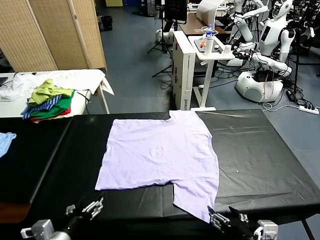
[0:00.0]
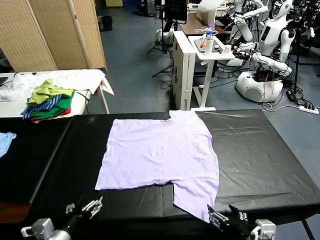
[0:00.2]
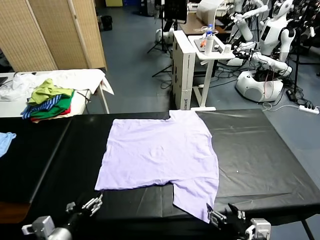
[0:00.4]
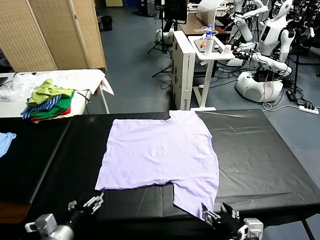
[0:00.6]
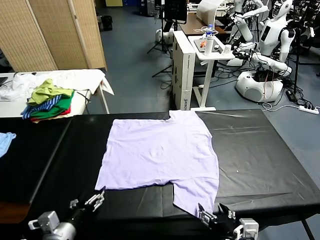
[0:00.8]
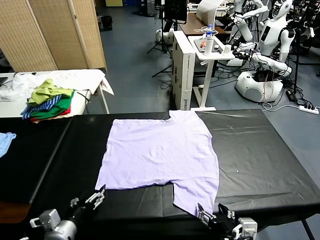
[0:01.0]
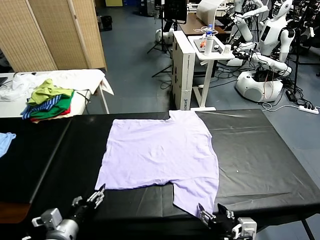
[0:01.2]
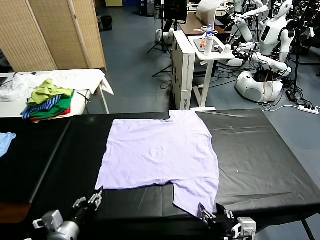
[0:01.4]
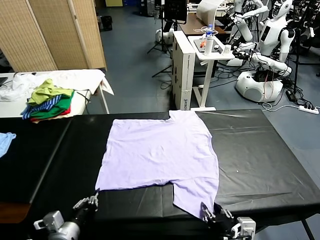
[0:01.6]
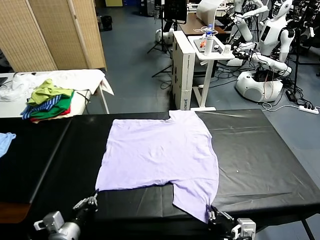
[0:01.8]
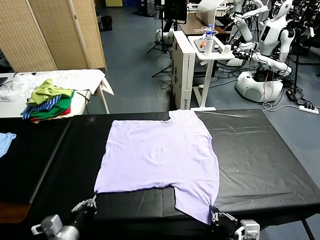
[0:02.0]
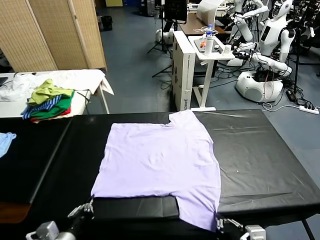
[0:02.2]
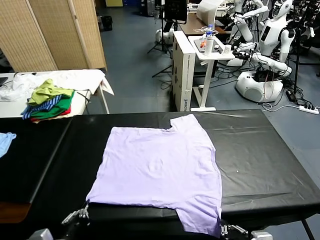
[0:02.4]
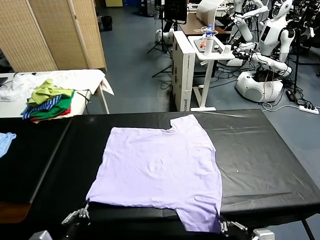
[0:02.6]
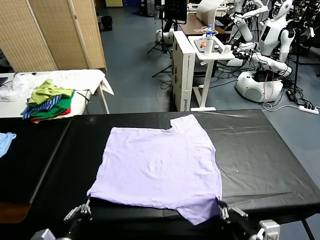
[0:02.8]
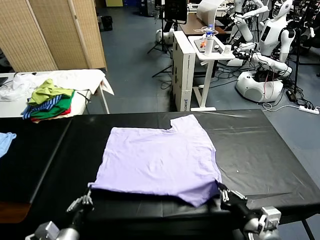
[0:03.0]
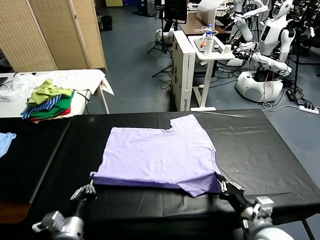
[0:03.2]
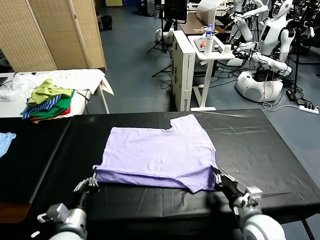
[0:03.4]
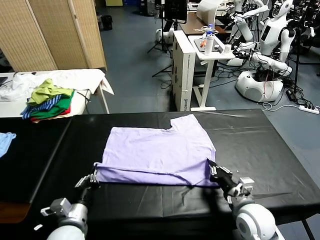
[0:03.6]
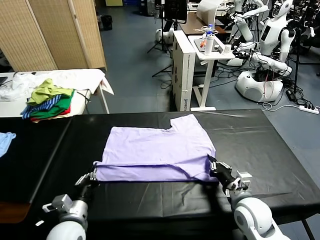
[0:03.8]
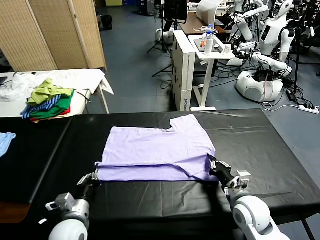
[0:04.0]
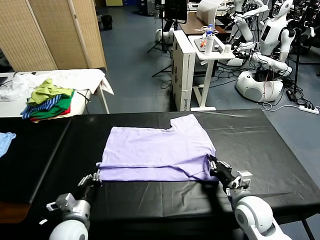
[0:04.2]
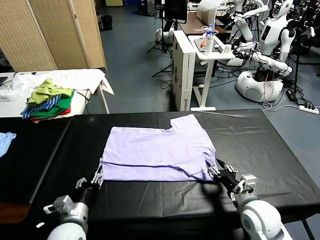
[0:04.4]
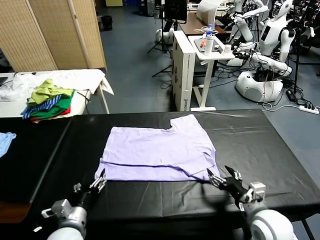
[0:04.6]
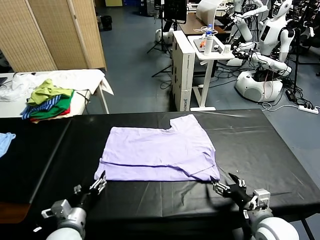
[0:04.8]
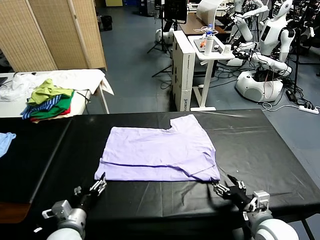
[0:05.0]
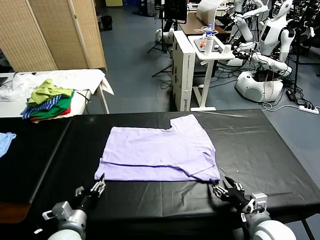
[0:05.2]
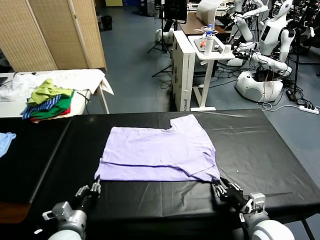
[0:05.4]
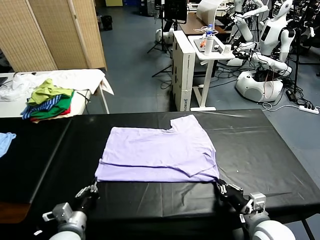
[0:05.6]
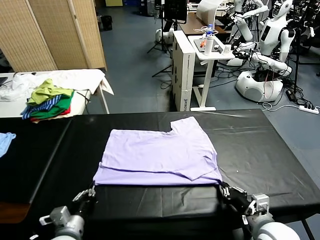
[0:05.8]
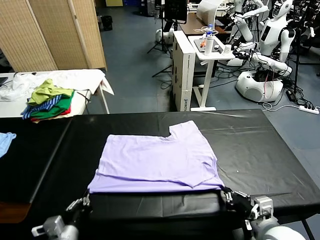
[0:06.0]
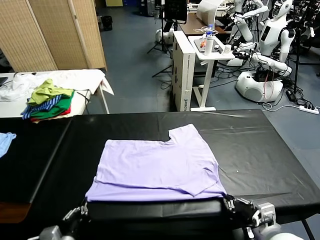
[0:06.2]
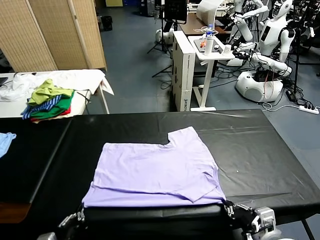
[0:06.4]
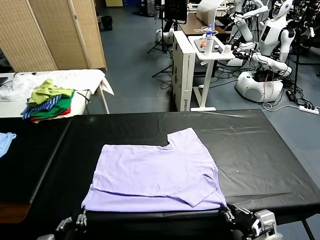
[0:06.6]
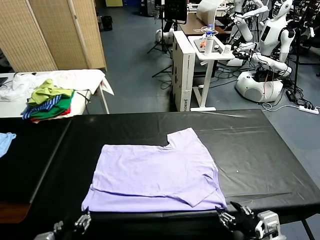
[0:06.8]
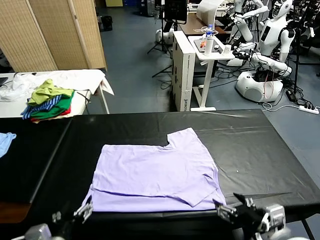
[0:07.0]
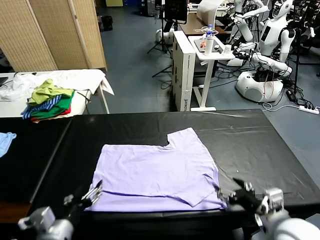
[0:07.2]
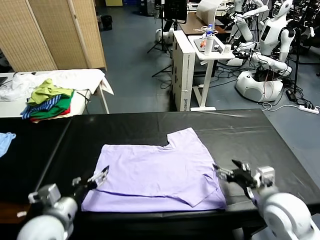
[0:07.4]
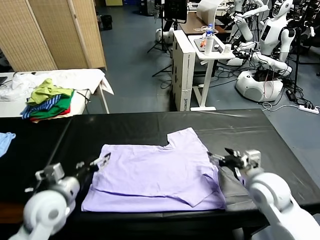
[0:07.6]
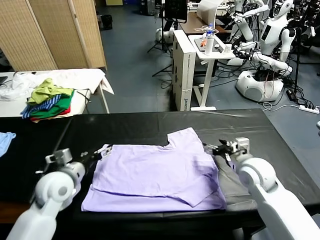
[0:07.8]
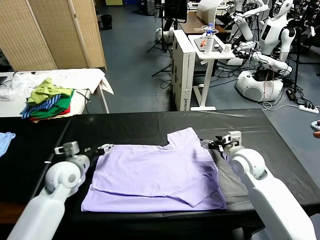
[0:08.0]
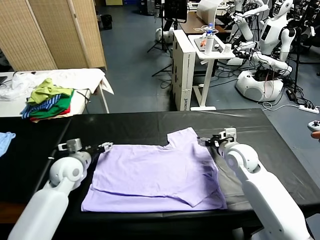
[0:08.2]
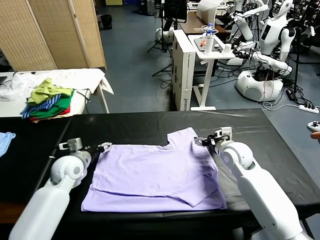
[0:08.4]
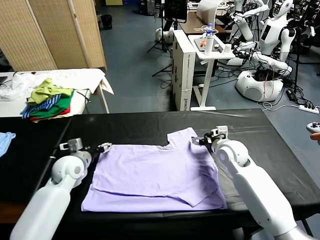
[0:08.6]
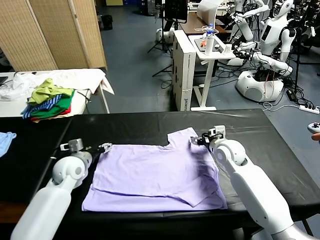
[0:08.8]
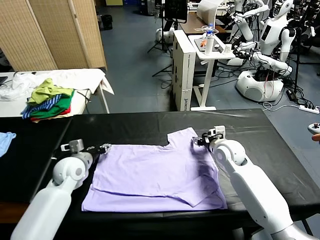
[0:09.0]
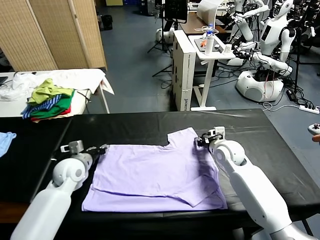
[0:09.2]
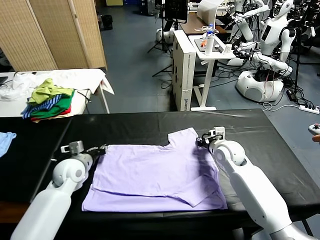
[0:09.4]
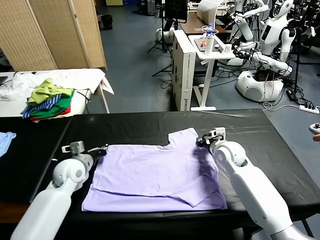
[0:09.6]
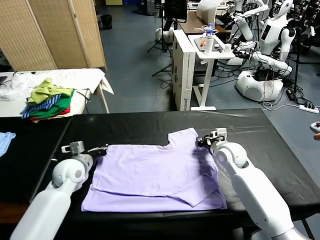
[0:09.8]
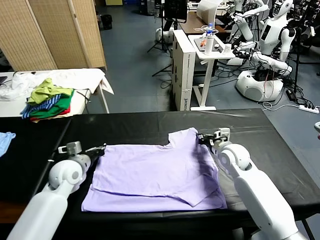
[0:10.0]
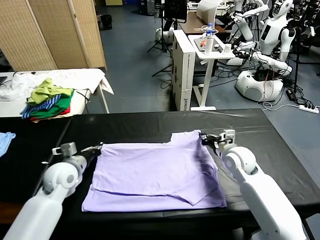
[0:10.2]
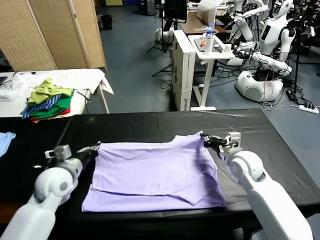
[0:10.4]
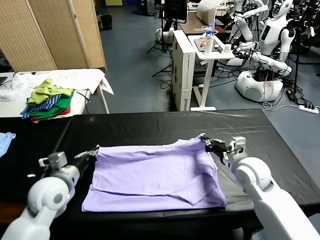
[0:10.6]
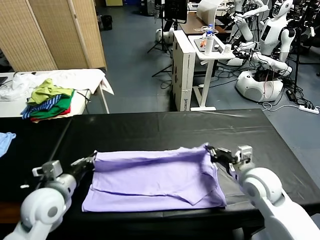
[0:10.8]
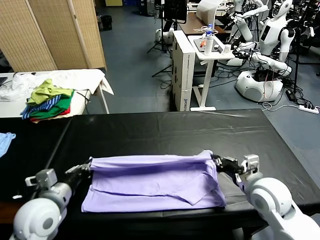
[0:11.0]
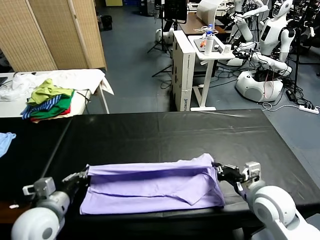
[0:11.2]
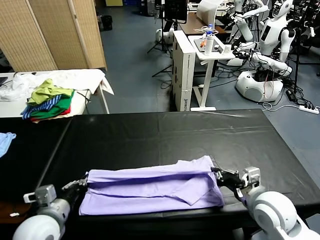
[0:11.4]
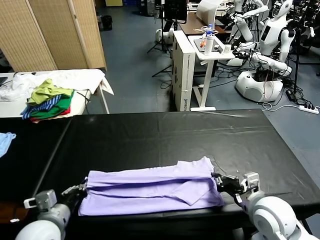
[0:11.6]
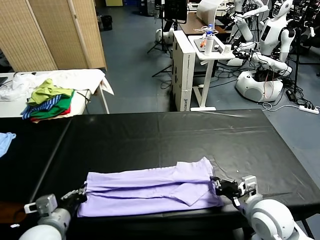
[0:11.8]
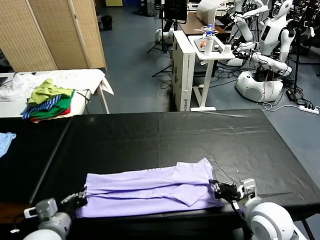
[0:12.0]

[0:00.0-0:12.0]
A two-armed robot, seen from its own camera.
Task of the whole recording: fold and organize the clothes.
Step, 0.0 to 1.8 s: use both grippers simultaneously to clamp the lower edge of the clothing fabric.
Step, 2.0 to 4.2 s: use both grippers to drag the lower edge of the fabric forward and fold it over the upper edge.
Step, 4.6 to 6.6 s: Drag the clothes downward with both gripper.
Step, 6.8 to 9.8 s: use both grippers simultaneously to clamp the upper edge of the clothing fabric.
1.6 to 3.0 s: The right gripper shifts some 10 cm forward.
3.0 to 4.4 s: The left gripper opens. Meanwhile the right gripper opens its fingers.
4.4 to 6.0 s: Both grippers move backward, approximately 5 cm. The left gripper closes up. The right gripper closes its fingers.
6.0 to 7.6 s: The two grippers go roughly 20 cm forward. The left gripper opens its fingers. The right gripper opens up.
7.6 to 9.0 s: The right gripper goes approximately 10 cm forward, and closes; the left gripper heads forward and downward, covering some 10 cm, and closes its fingers.
9.0 to 10.4 s: The right gripper goes about 10 cm backward; the left gripper travels backward and upward by approximately 10 cm, and closes up.
10.4 to 12.0 s: The two grippers go about 15 cm backward.

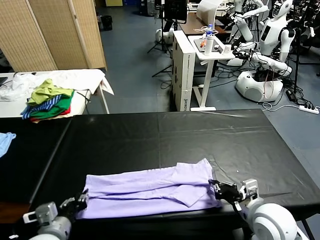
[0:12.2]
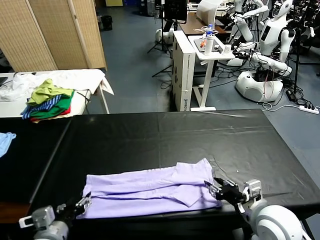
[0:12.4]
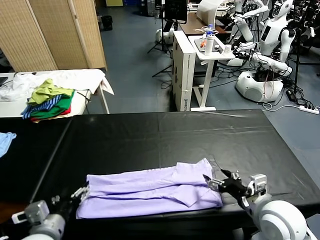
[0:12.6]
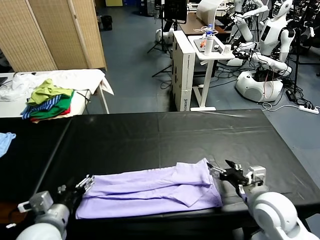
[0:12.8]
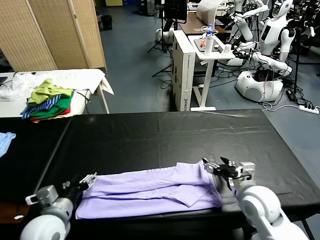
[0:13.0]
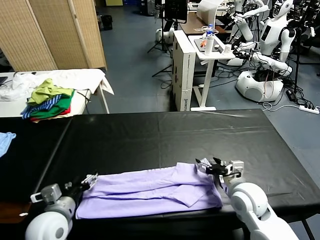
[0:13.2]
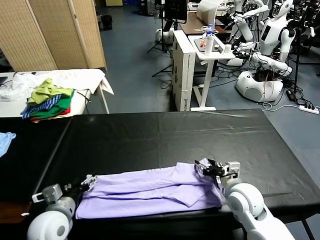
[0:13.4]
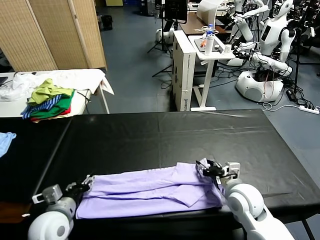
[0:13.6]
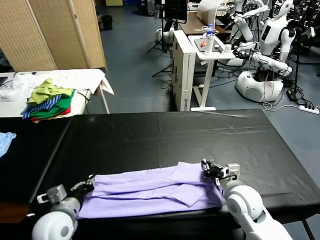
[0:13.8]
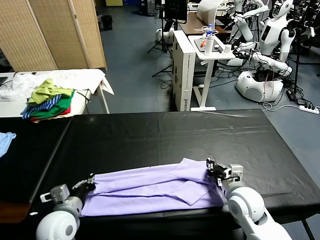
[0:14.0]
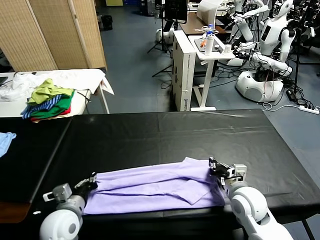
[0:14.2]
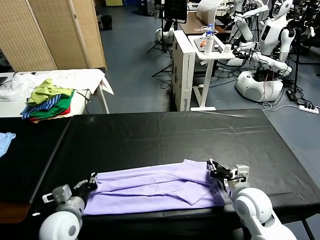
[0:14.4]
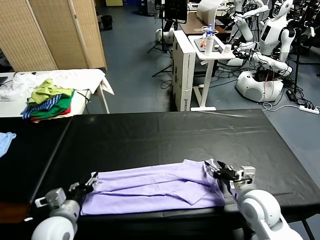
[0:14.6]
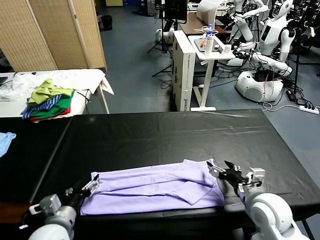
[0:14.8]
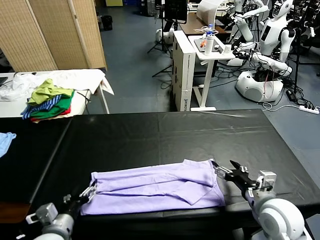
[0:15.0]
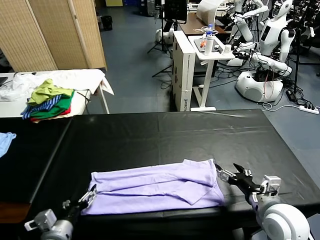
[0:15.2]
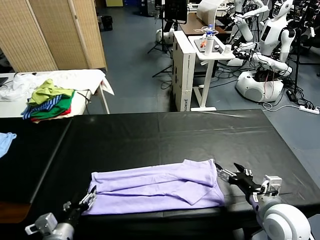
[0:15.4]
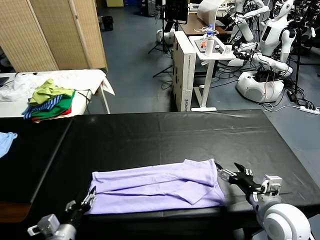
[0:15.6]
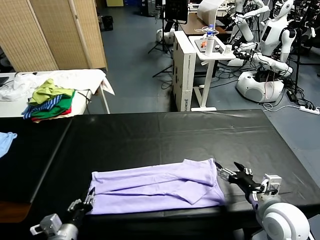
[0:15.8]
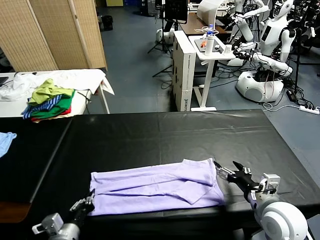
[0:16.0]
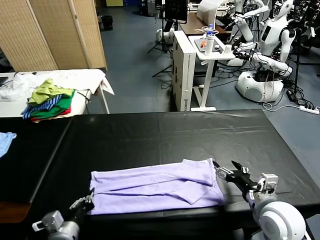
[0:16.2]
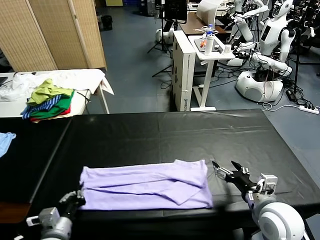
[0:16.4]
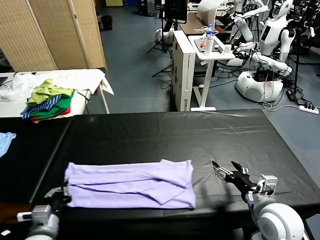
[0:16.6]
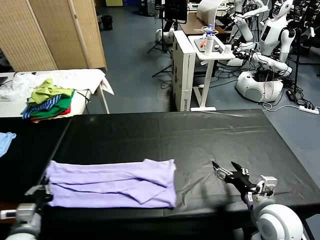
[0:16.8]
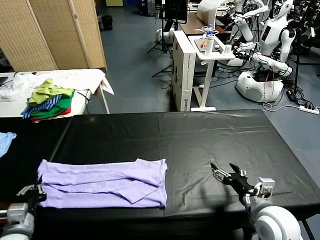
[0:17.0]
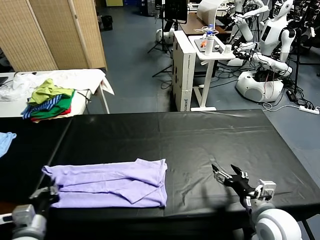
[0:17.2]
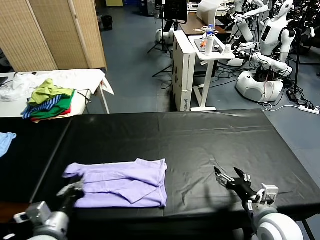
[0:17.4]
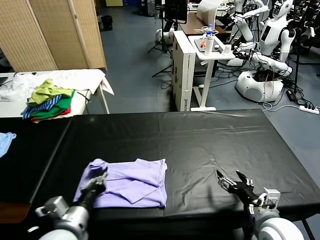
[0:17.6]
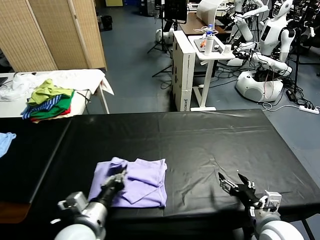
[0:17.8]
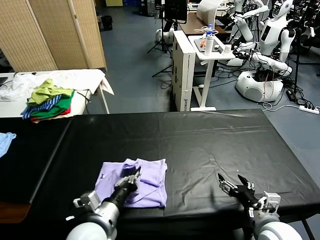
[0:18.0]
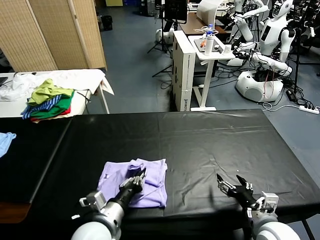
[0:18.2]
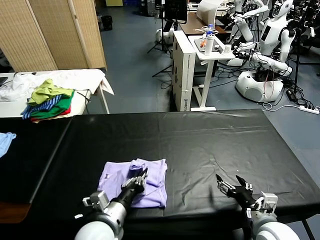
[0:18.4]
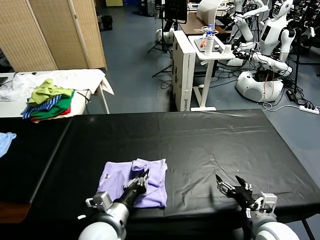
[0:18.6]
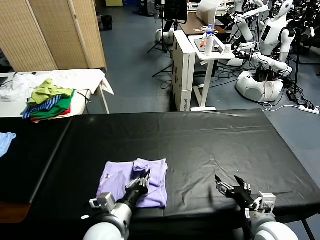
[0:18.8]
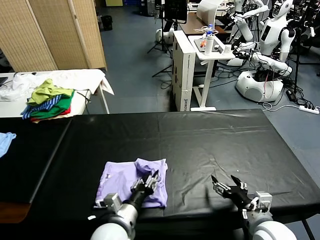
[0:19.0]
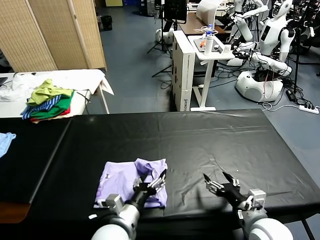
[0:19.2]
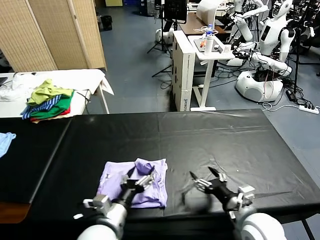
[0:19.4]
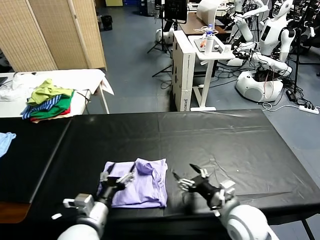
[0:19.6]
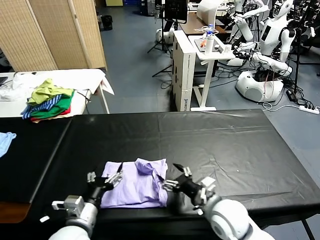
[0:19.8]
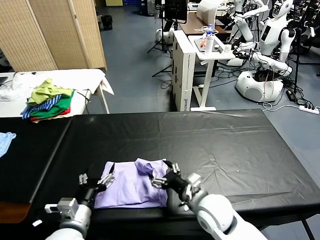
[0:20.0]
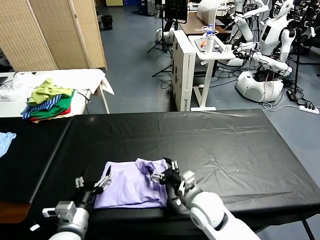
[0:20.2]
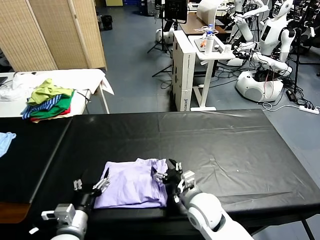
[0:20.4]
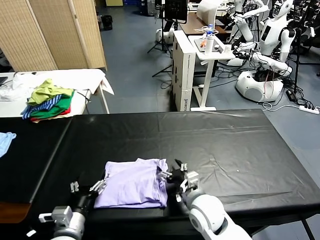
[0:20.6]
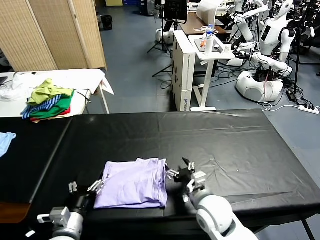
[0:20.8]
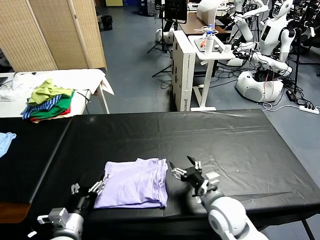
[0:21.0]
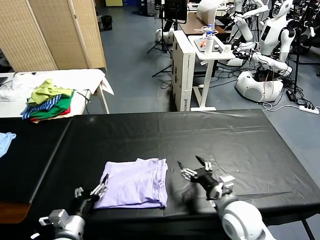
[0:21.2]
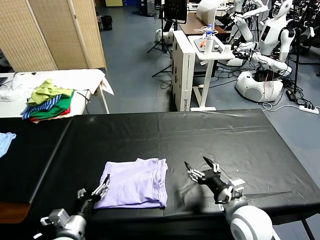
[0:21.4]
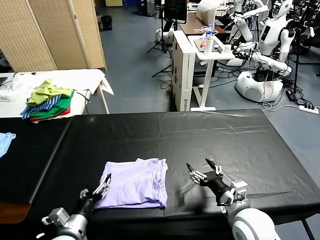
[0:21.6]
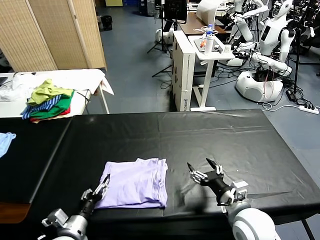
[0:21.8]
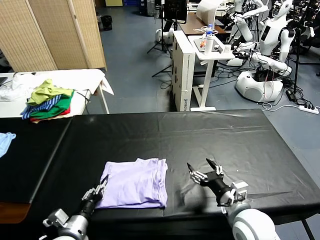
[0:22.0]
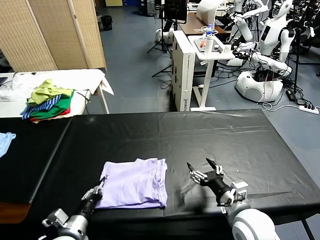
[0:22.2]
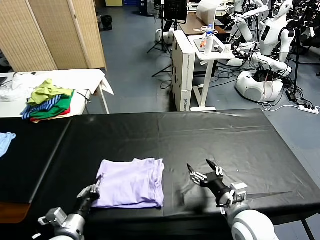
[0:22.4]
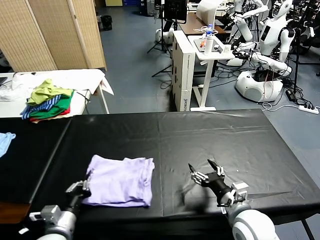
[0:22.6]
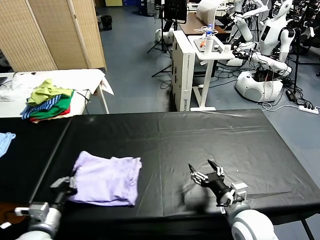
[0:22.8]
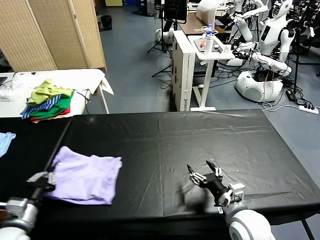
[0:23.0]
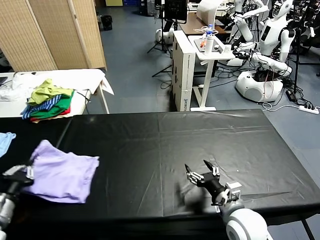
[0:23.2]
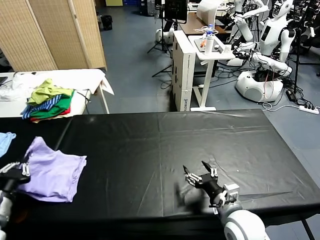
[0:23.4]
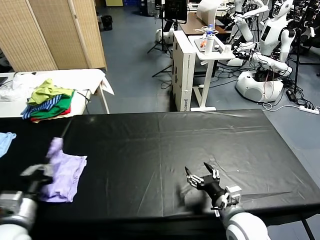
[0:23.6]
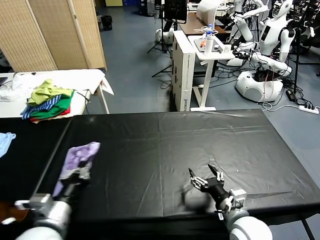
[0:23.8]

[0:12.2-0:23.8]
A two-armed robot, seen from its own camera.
Task of the whole recording: fold and organize the clothes.
Step, 12.6 to 16.2 s: use the left gripper to clamp the left edge of the fabric.
Step, 16.6 to 19.4 s: use the left gripper to drag the left edge of the fabric to the left and folds it over the right edge.
12.2 to 13.6 s: The right gripper goes approximately 10 cm forward and downward, and closes its fingers. The left gripper moves forward, roughly 5 cm, and opens, then closes once more.
13.6 to 15.0 s: The right gripper travels backward, to the right and upward by some 10 cm, and opens its fingers, while the left gripper travels backward by approximately 5 cm, and opens up.
15.0 to 16.6 s: The left gripper goes roughly 5 cm to the left, and closes.
16.6 to 18.0 s: The left gripper heads to the right, covering about 15 cm.
18.0 to 19.4 s: The right gripper is displaced to the left by approximately 5 cm. Meanwhile the left gripper opens its fingers.
19.4 to 21.0 s: The left gripper shifts roughly 10 cm to the left.
21.0 to 22.4 s: The right gripper shifts by approximately 5 cm, while the left gripper closes.
22.4 to 23.8 s: The left gripper moves upward, roughly 10 cm, and goes to the left and returns, approximately 15 cm each way.
